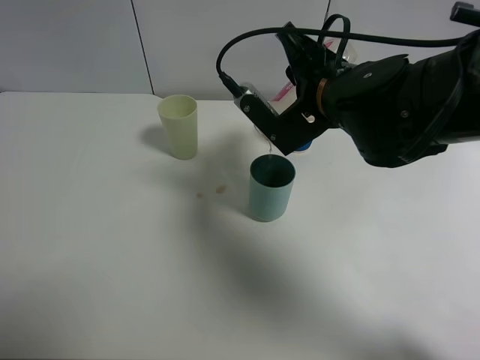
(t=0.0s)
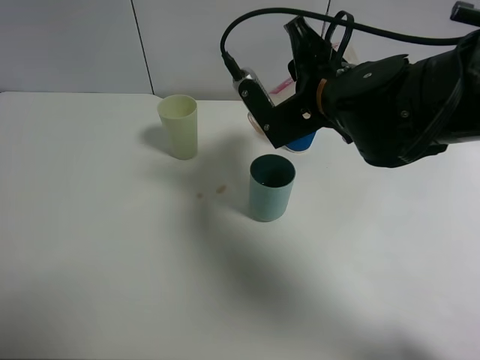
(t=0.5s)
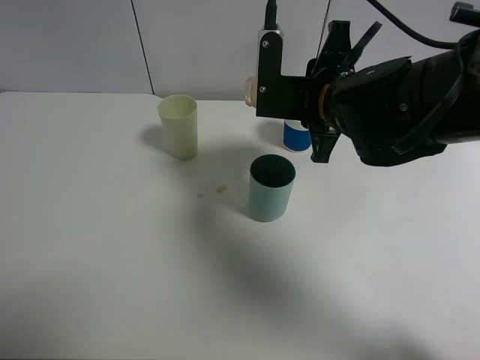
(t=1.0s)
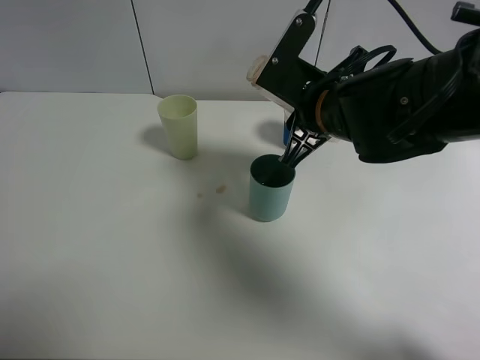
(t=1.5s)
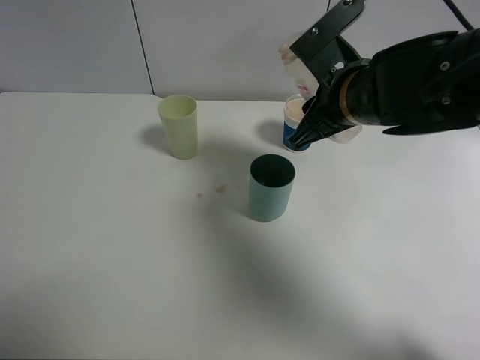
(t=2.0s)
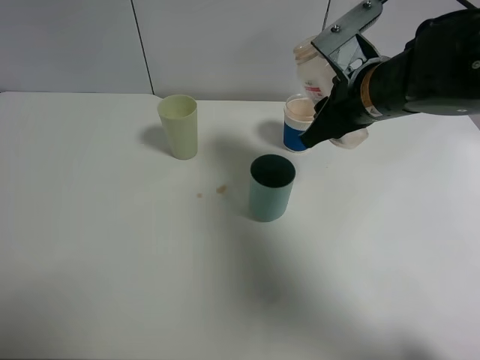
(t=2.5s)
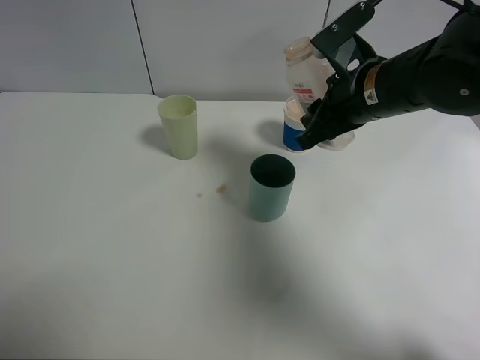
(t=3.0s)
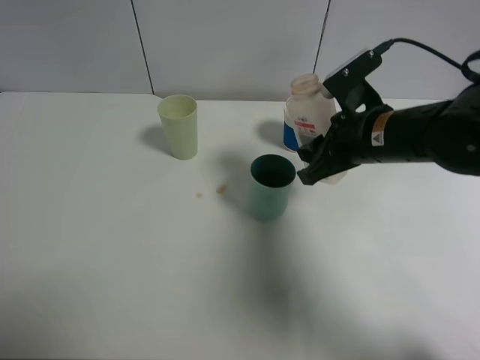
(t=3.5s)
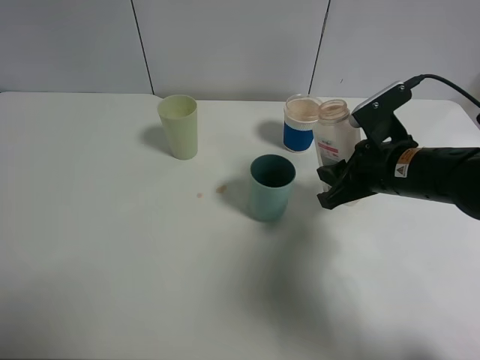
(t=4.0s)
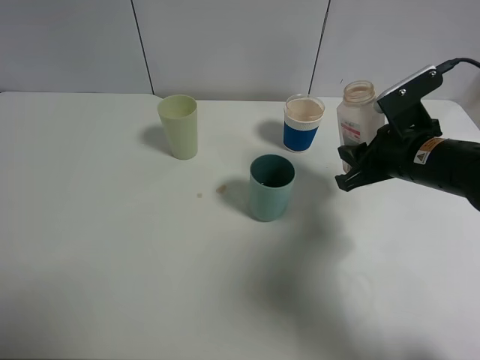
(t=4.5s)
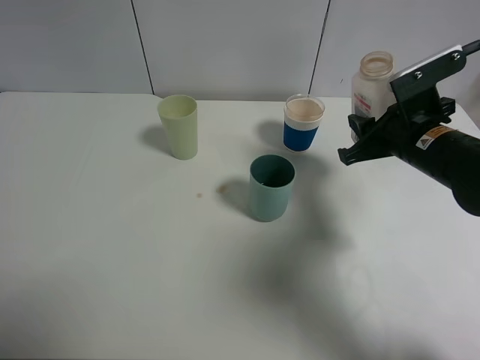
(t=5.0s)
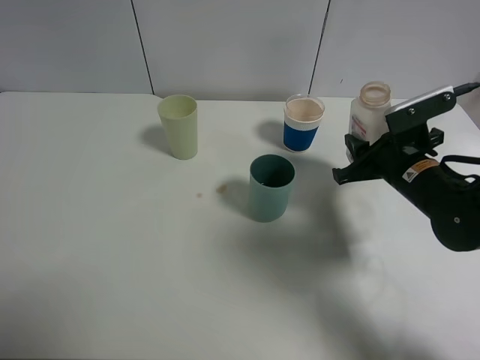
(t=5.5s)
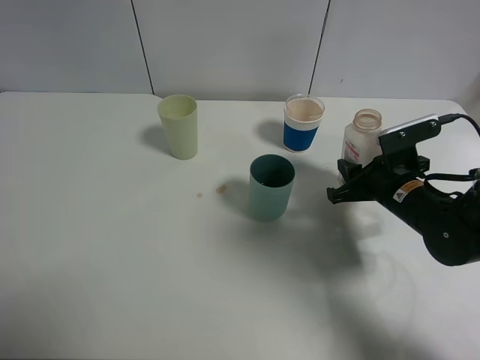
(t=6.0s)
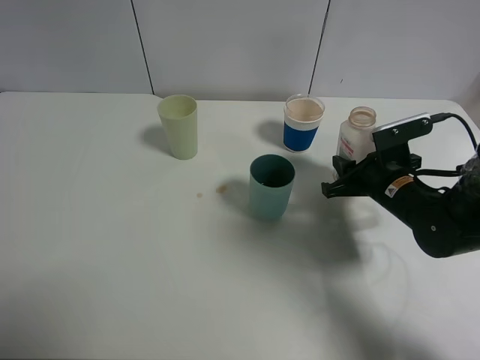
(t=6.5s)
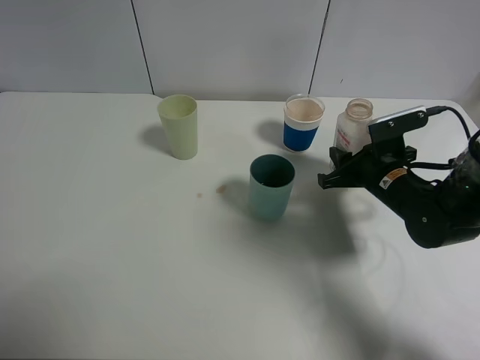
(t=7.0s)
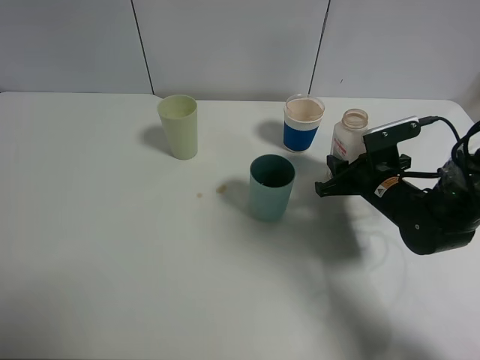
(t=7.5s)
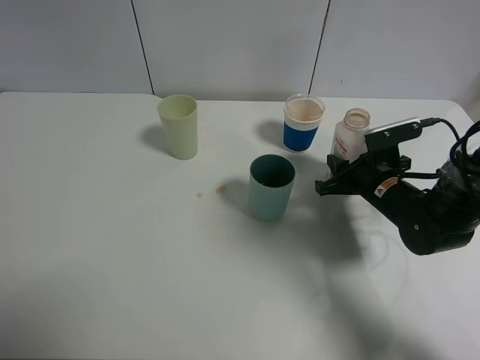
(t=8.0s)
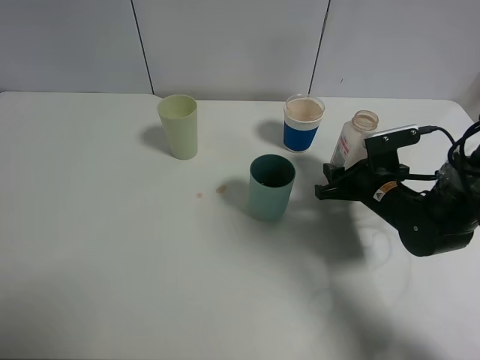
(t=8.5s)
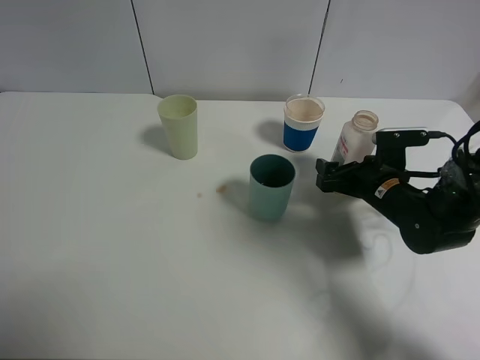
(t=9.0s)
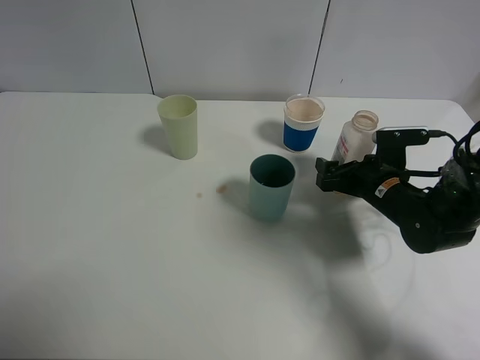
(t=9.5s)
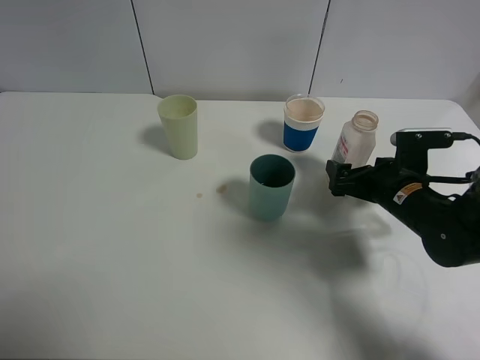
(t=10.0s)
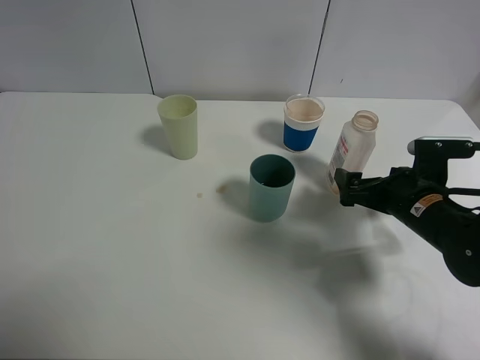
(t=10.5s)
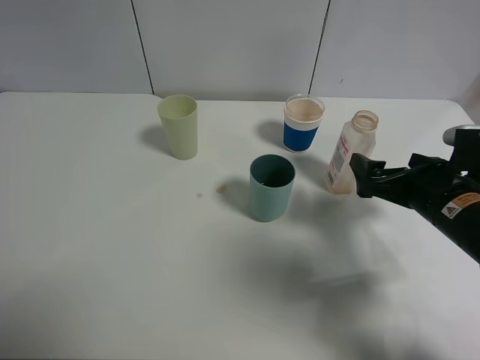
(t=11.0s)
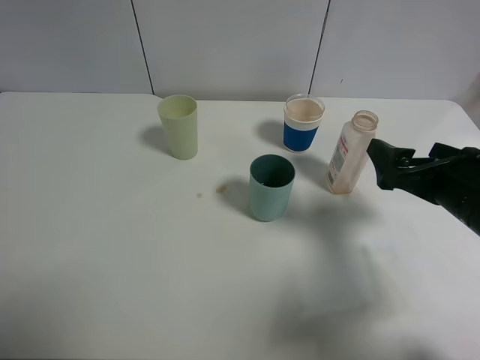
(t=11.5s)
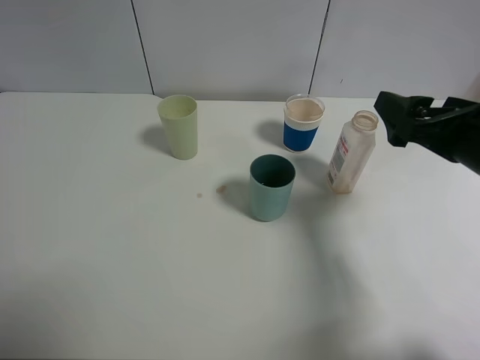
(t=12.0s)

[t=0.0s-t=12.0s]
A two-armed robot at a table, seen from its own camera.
Task of the whole recording: use a clamp to hold the bottle of the drink, pour the beverage into a random cup, then clamp the cup containing the drink and pour the drink into another random cup.
Step, t=1.5s to t=10.0s: Place the drink bottle on the table with right gripper.
t=2.0s to t=4.0s: The right gripper moves to the right and downward, roughly 10 cm.
t=4.0s to t=6.0s: The right gripper shifts about 5 cm downward.
t=6.0s to t=8.0s: The grippers make only small movements.
t=8.0s to t=10.0s: The right gripper opens up.
t=10.0s to t=12.0s: The right gripper goes some 15 cm upward and backward.

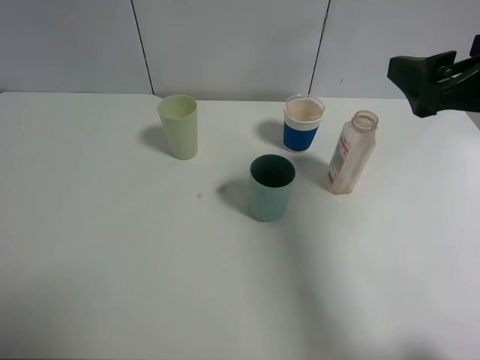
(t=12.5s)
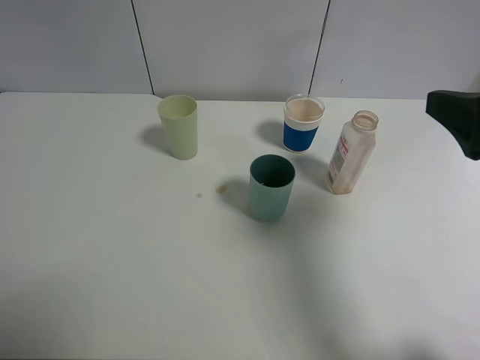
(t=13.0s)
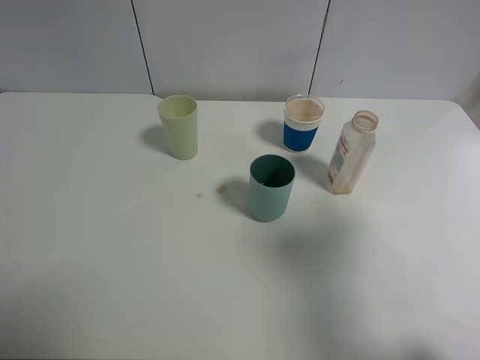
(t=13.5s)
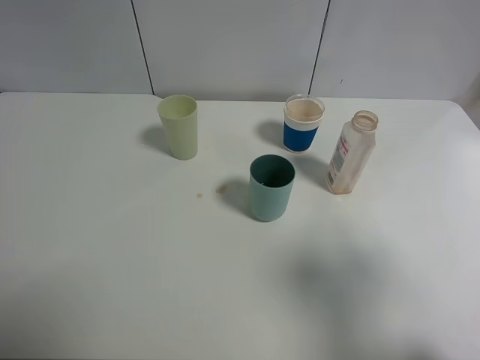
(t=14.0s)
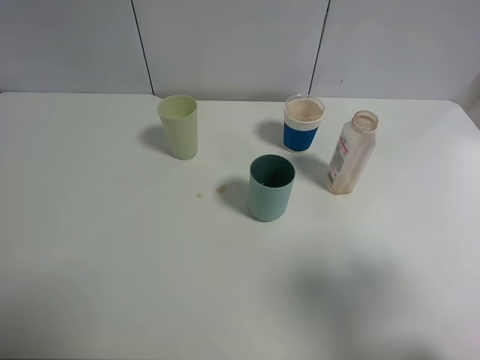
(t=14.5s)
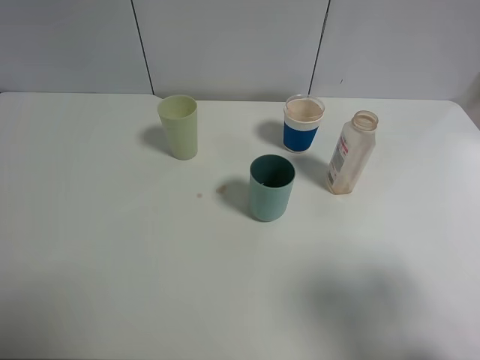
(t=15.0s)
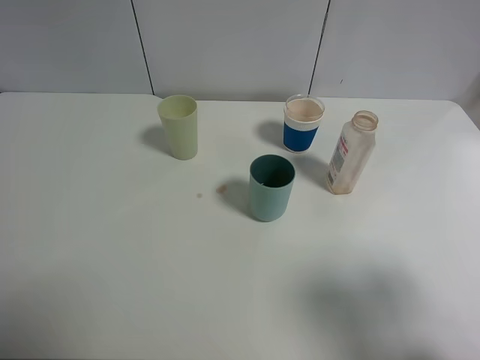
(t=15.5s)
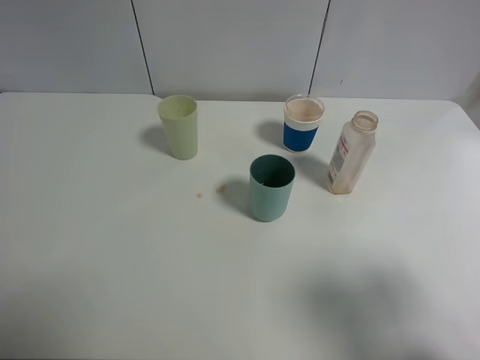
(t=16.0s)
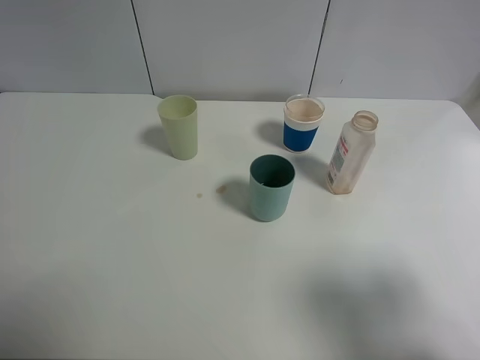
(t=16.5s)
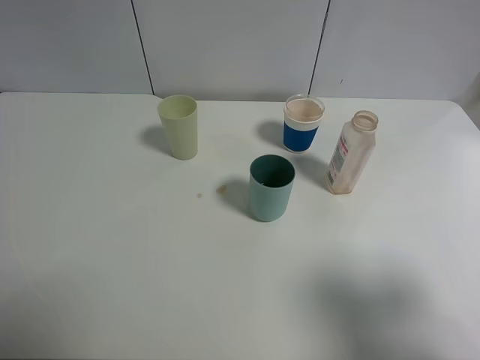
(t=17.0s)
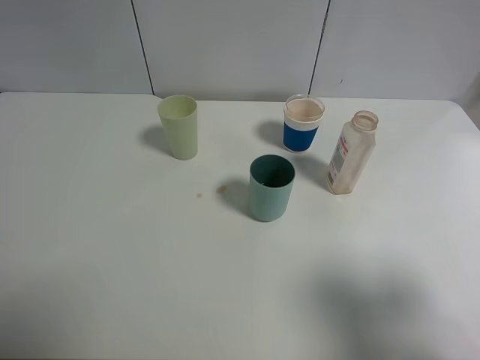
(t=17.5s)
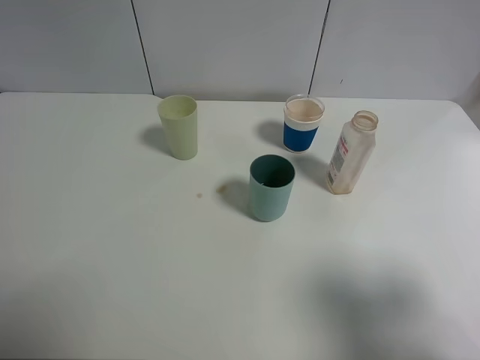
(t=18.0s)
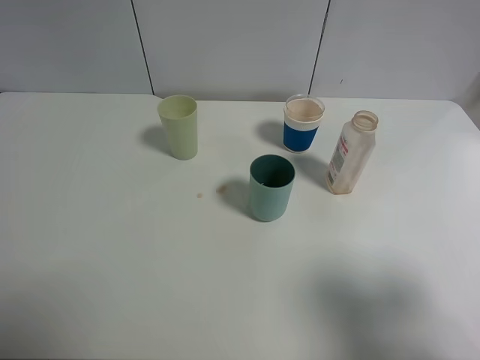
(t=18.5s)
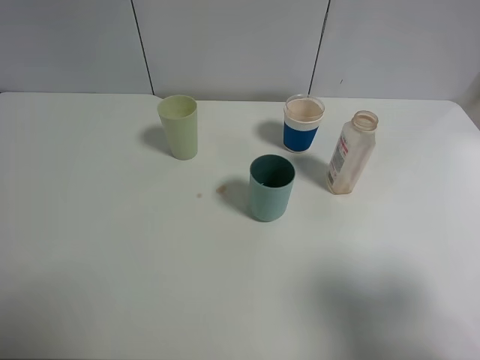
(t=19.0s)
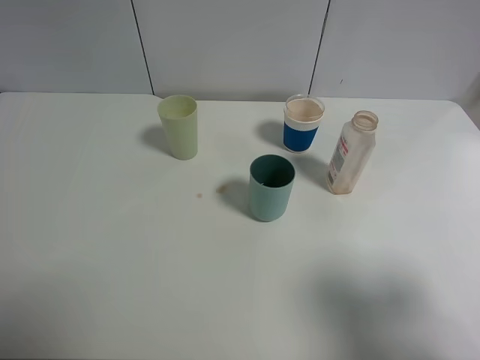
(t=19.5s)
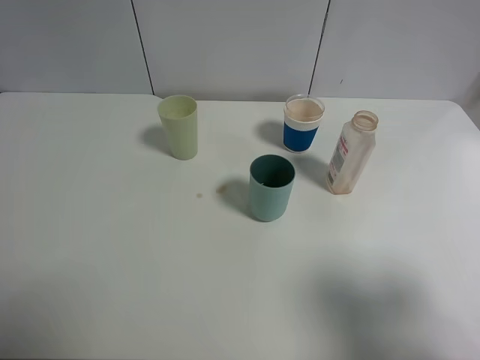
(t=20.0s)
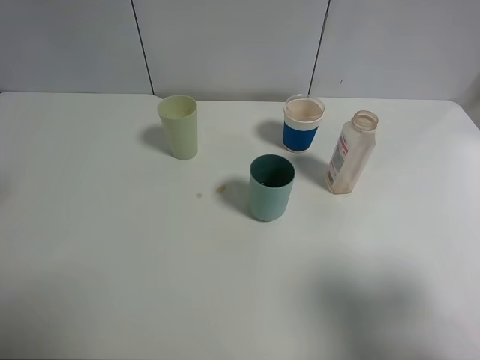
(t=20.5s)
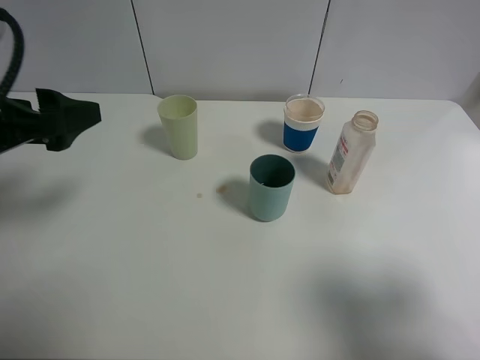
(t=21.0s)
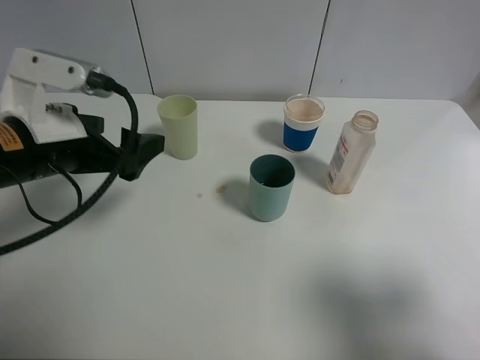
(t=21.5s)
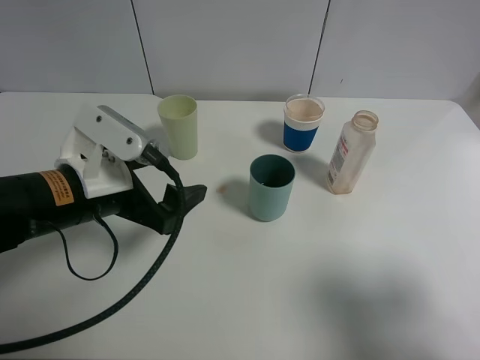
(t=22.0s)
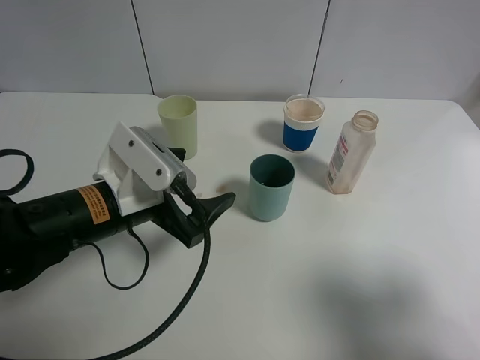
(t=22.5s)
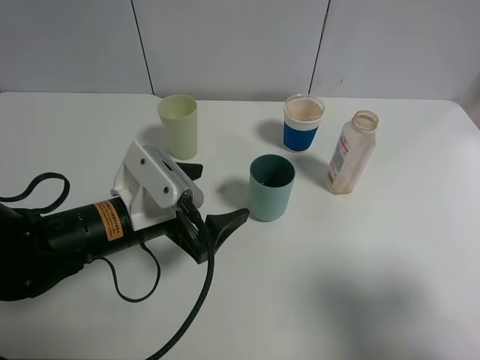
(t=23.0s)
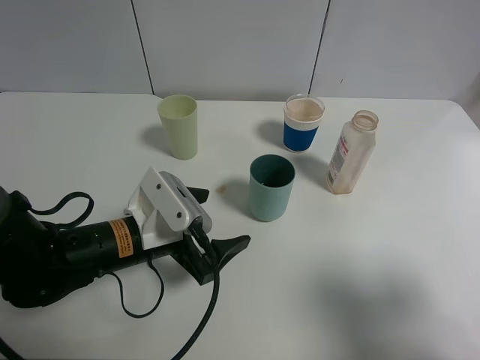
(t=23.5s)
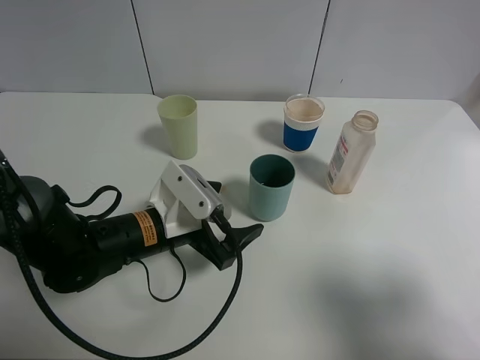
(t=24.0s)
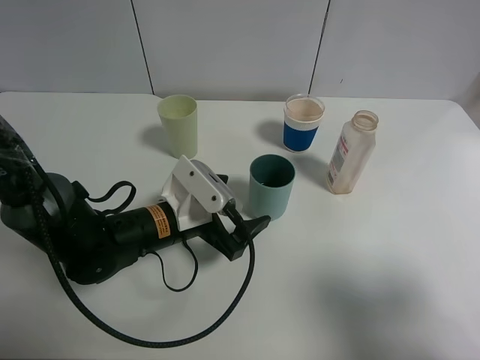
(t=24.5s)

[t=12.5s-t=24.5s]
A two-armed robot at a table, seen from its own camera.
Task of the whole recording: use a clamp to hold the bottle of the drink, pour the beverage into a random cup, then clamp the cup containing the drink and pour the drink into another random cup.
t=12.5s to t=14.5s: The right gripper heads backward, covering approximately 15 cm.
t=20.5s to t=22.5s: The left gripper goes some 25 cm downward and to the right.
t=22.5s to t=24.5s: The left gripper is displaced downward by some 5 cm.

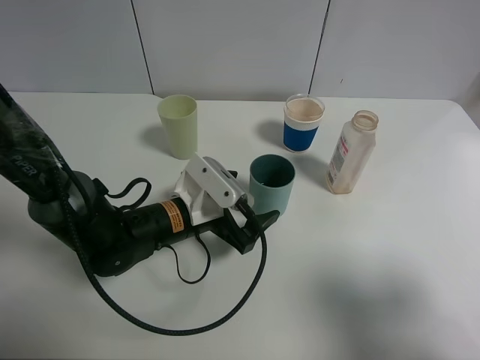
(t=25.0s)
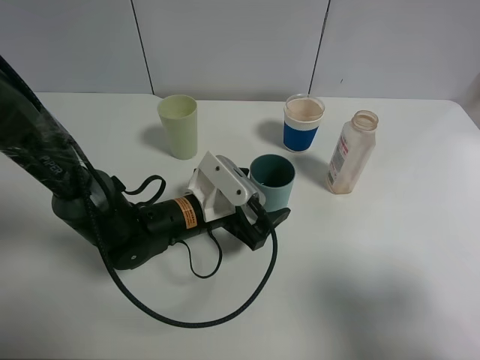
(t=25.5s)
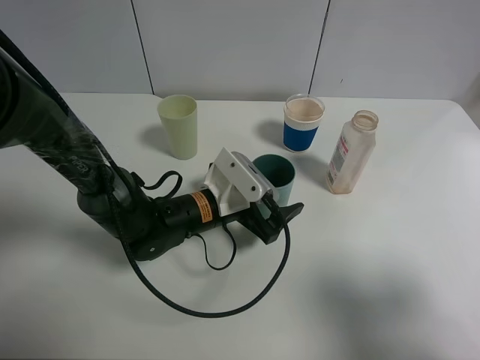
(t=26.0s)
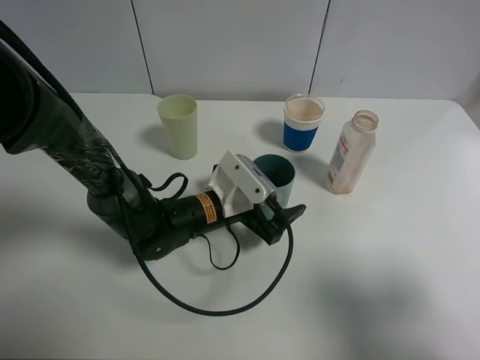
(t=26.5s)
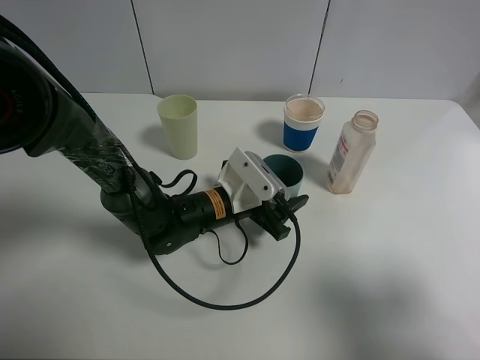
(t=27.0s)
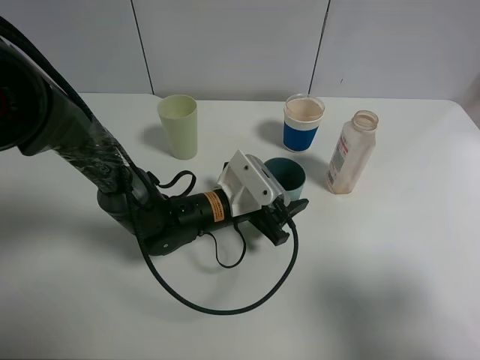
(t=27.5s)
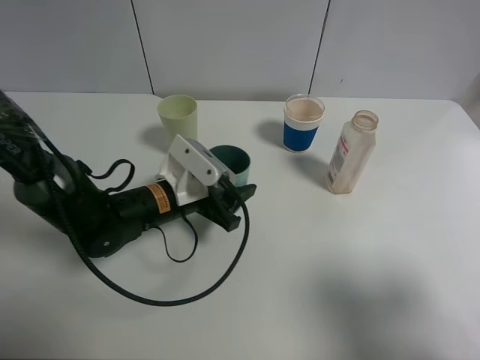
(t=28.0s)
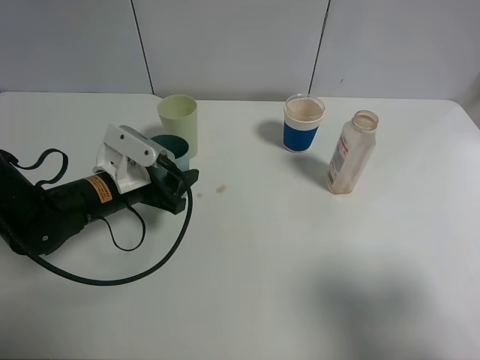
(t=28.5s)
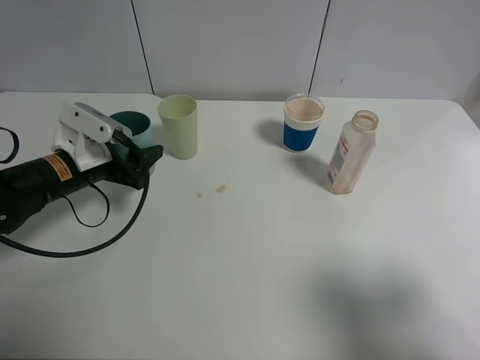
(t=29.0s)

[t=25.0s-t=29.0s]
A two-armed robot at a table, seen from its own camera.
Task of the whole recording: use a clamp to hold the bottle of the drink, pour the beverage into a random cup, then clamp the cup containing the drink and pour the drink into another random cup.
Step, t=25.0s to t=27.5s: Pick up the blue plastic cup with left gripper.
t=25.0s to t=27.0s: The left gripper ends up about 5 cm from where it was, and closes its fingers.
t=27.0s to t=29.0s: The left gripper goes roughly 20 cm to the left.
